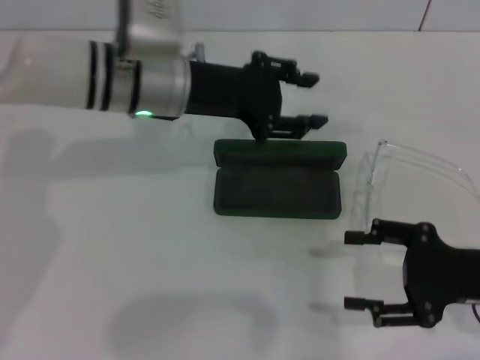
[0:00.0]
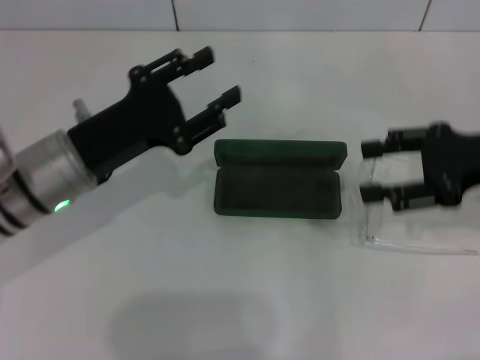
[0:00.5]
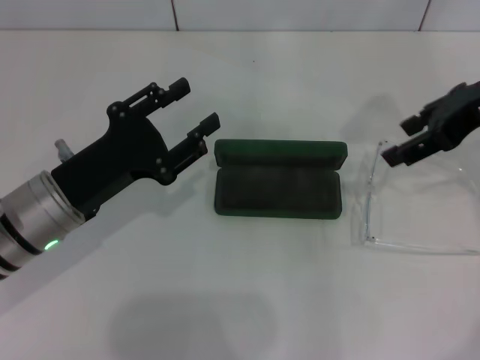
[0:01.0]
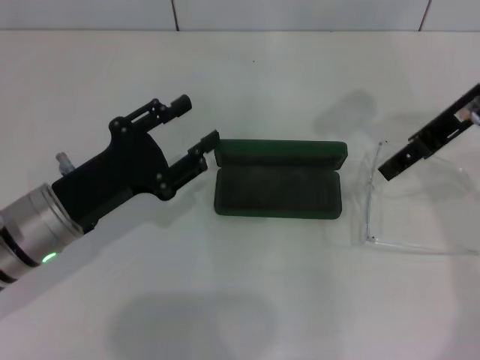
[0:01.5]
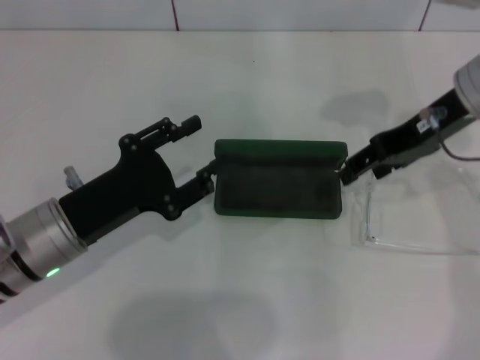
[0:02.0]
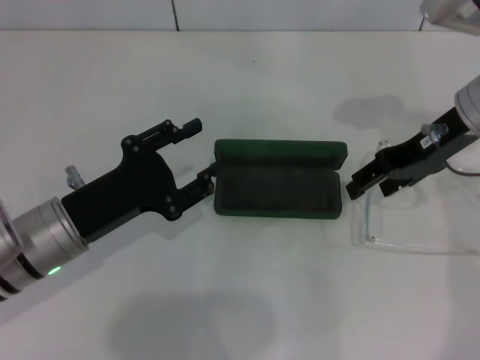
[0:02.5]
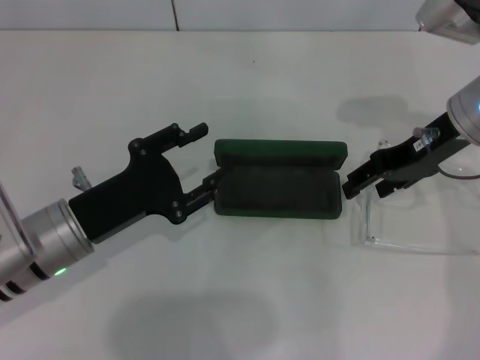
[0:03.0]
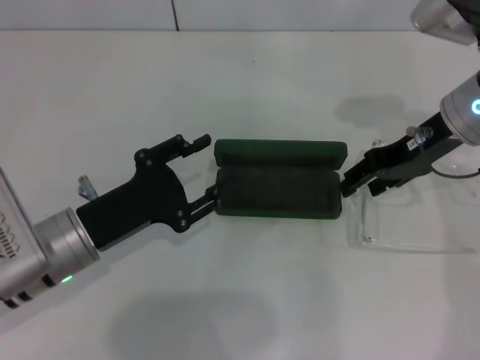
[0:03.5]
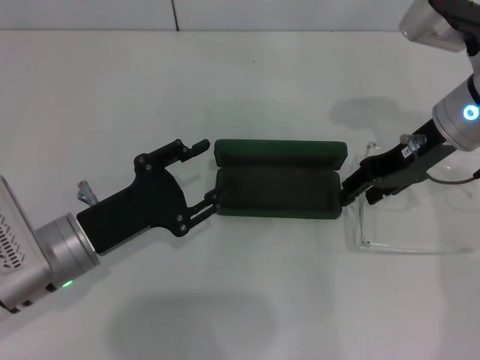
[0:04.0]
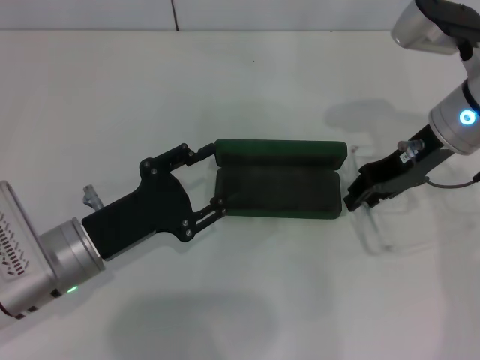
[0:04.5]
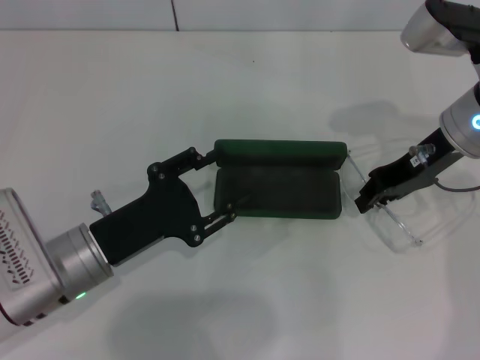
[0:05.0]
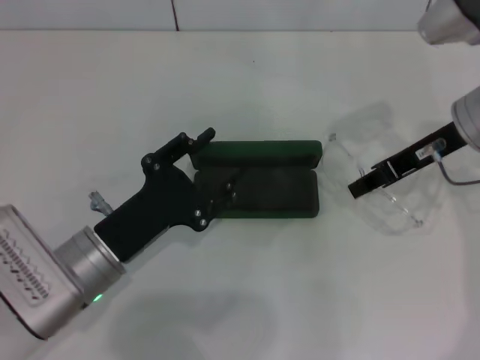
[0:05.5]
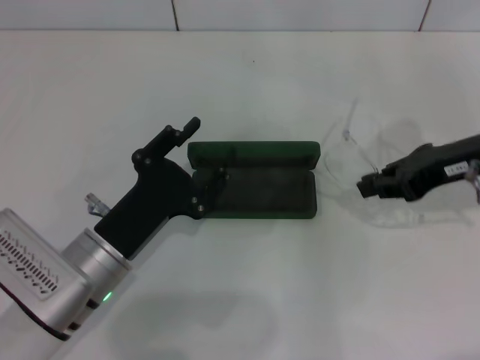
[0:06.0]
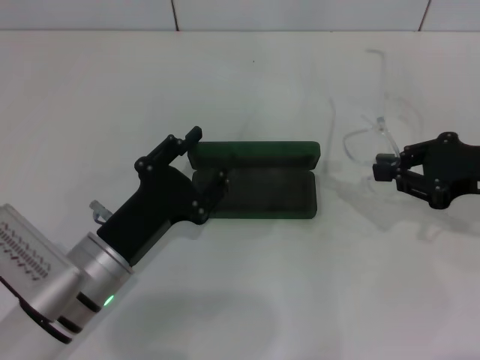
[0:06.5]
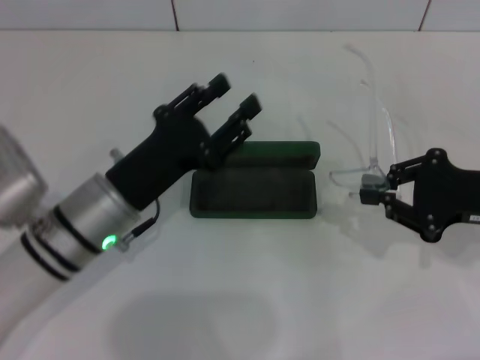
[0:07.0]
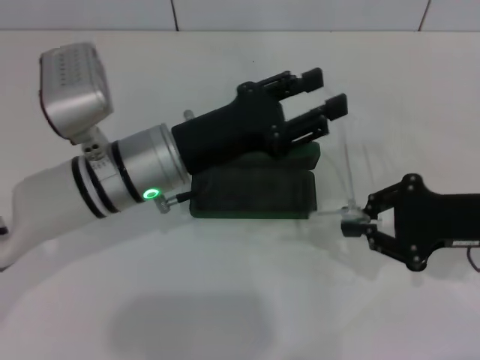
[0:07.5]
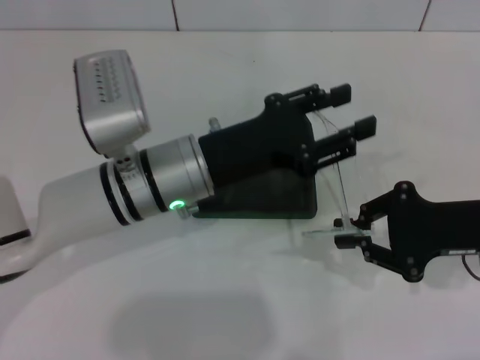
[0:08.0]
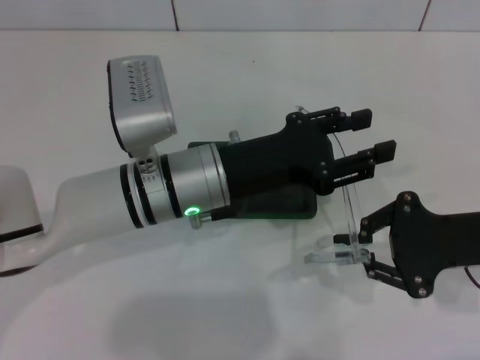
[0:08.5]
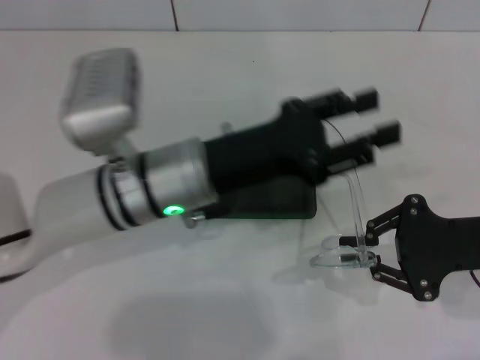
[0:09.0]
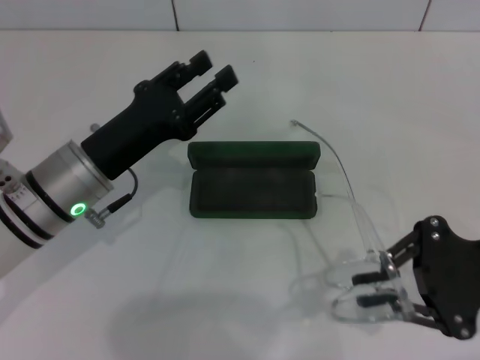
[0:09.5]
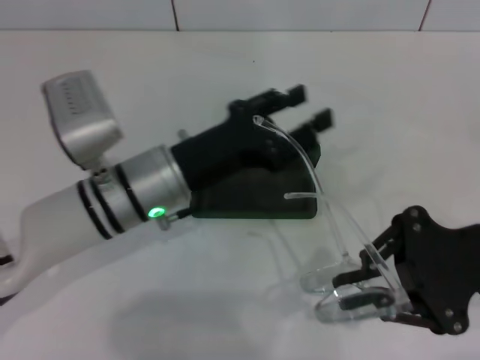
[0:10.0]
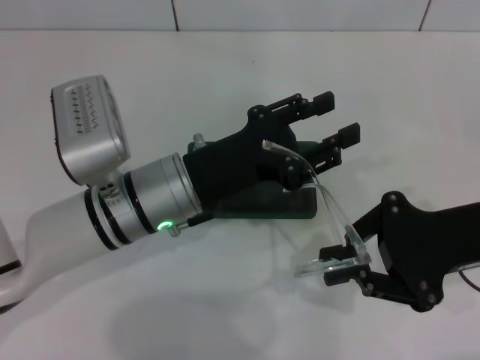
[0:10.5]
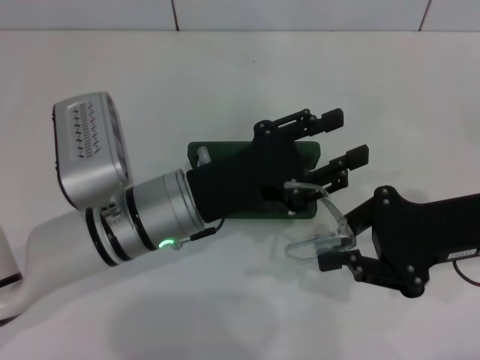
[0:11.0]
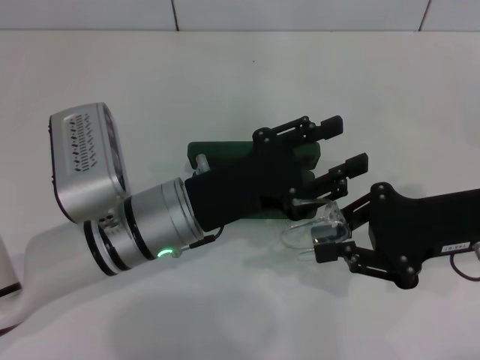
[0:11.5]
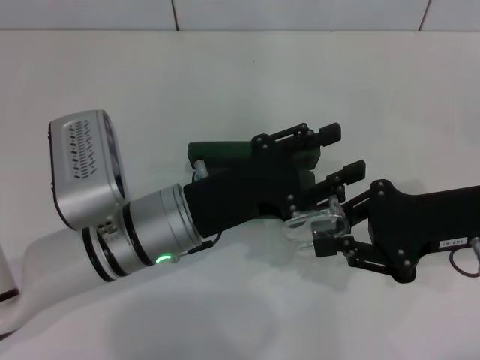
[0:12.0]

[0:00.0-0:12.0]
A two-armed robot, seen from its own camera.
Step, 0.0 to 5.0 s: Grab the eyeglass frame with your right hand.
Step, 5.5 to 11.5 s: Fold the frame with your left hand.
0.0 to 2.0 s: The left gripper goes about 20 cm backward, to the left and downward. Meanwhile the right gripper moves forward, upward and to the left, about 20 cm.
2.0 to 4.0 s: The grippers make only small movements.
4.0 to 6.0 s: The right gripper moves to the right, some 5 cm, and closes its fingers.
6.0 to 8.0 s: The right gripper shifts some 10 cm backward and downward. The left gripper is displaced forward, to the right and upward by roughly 15 cm.
8.0 to 10.0 s: The left gripper travels to the left and back again, about 10 cm each way.

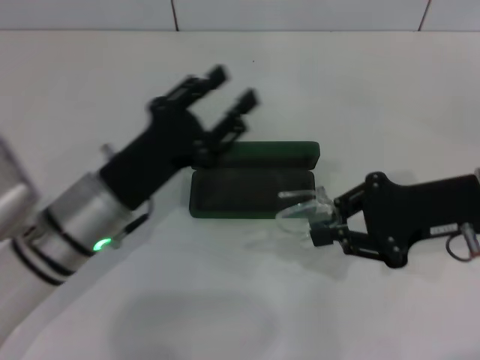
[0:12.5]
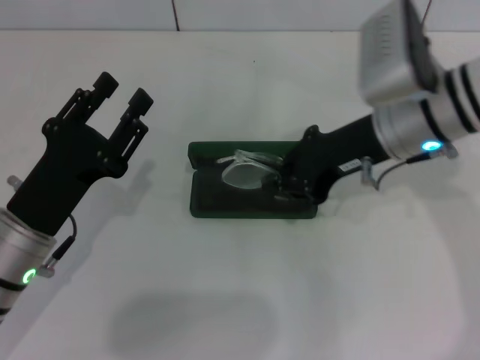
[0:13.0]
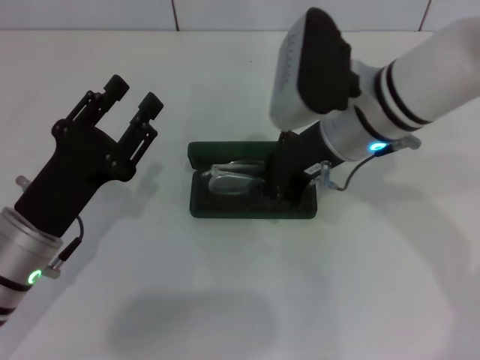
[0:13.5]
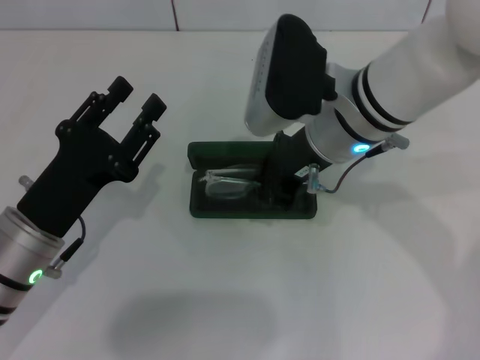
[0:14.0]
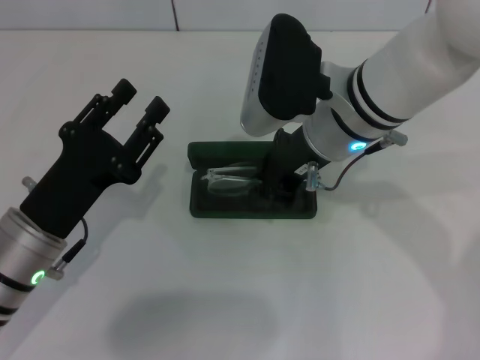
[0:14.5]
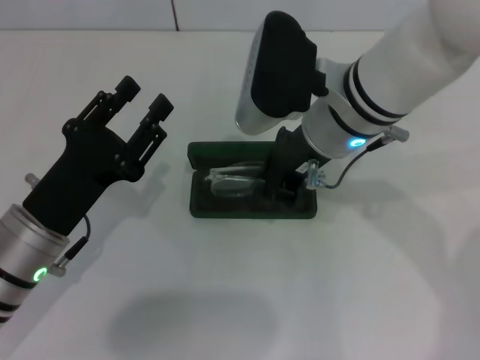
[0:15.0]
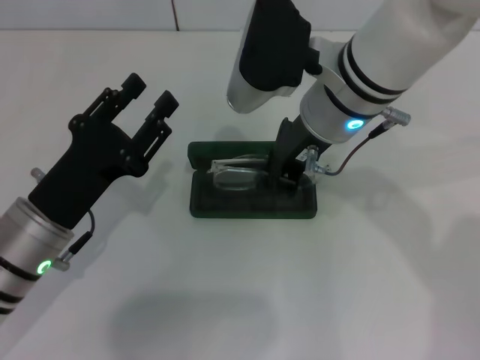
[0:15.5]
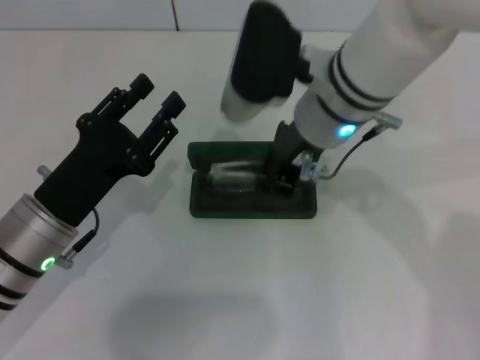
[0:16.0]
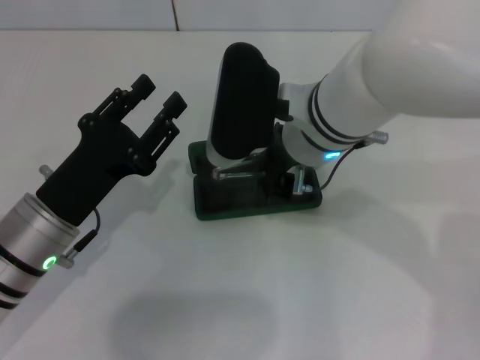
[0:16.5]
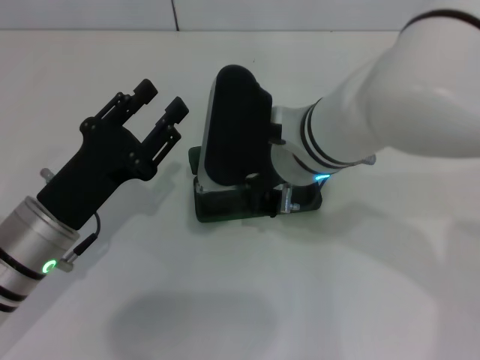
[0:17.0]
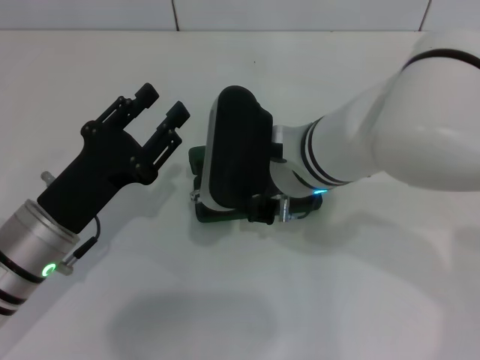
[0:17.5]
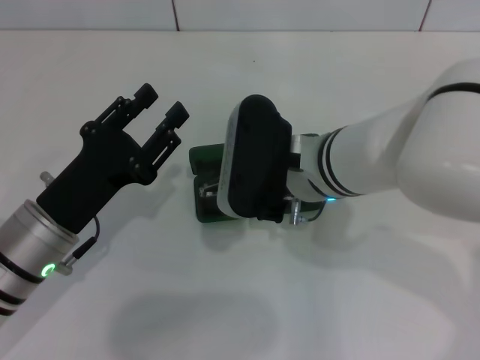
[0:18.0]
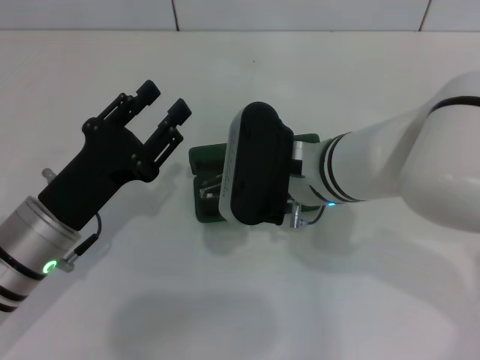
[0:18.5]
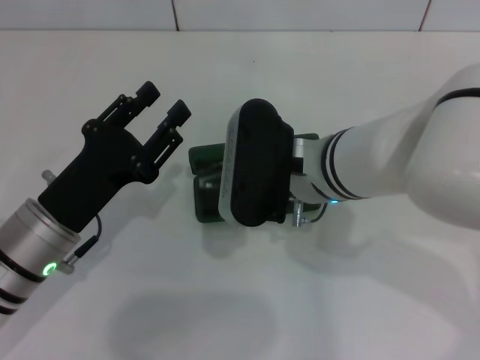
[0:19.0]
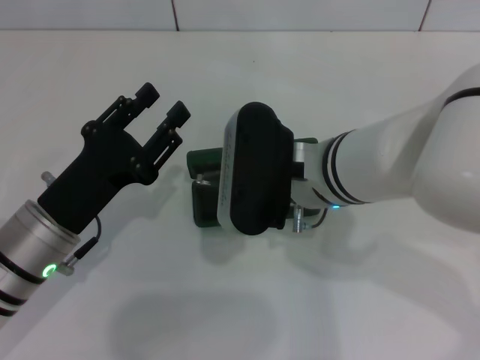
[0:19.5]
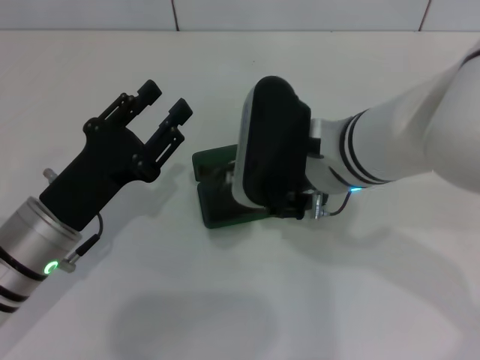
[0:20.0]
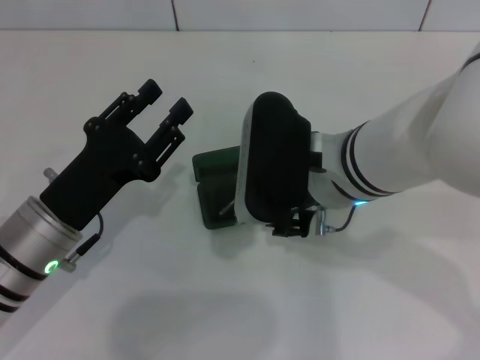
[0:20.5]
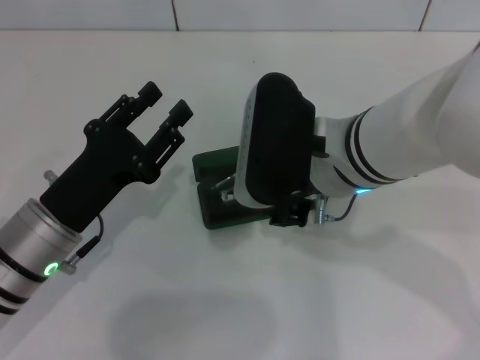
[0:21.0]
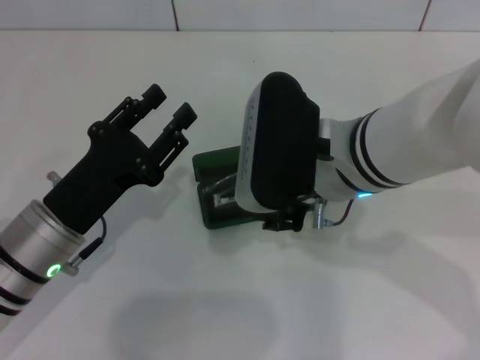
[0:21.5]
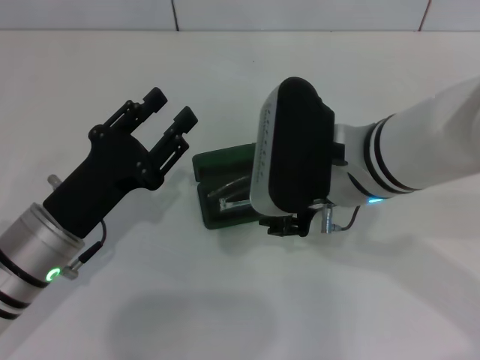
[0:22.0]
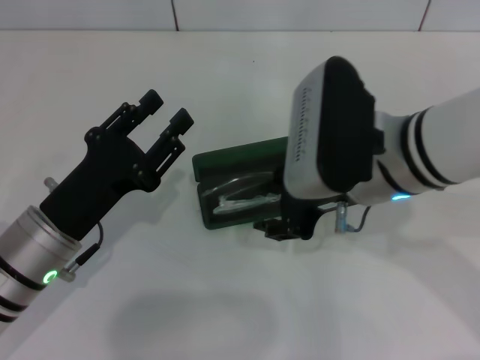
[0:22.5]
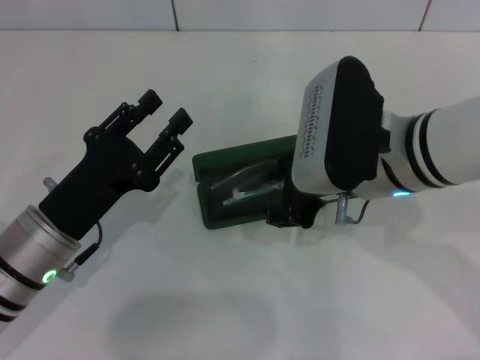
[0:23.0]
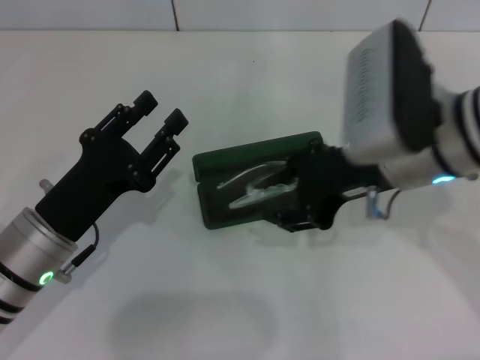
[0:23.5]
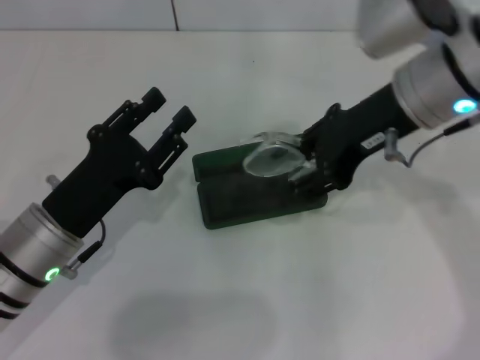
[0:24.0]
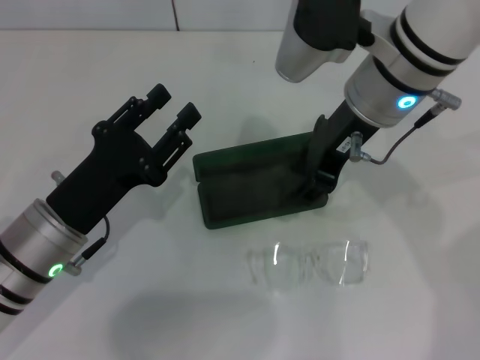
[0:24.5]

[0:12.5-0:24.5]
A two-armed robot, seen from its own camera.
12.5 to 14.5 s: The left gripper ends up roughly 5 cm from where it was, while the right gripper heads to the left, covering some 15 cm.
16.5 to 18.5 s: The right gripper changes place by about 5 cm.
18.5 to 20.5 s: The right gripper opens.
20.5 to 22.5 s: The grippers make only small movements.
22.5 to 24.5 s: The right gripper shifts about 5 cm forward.

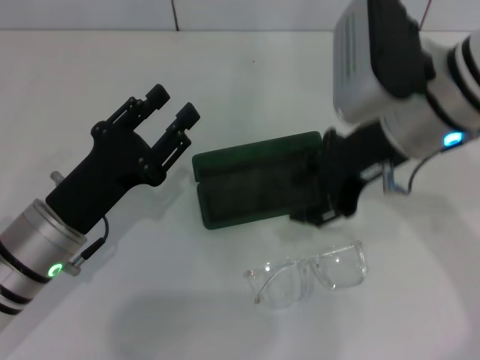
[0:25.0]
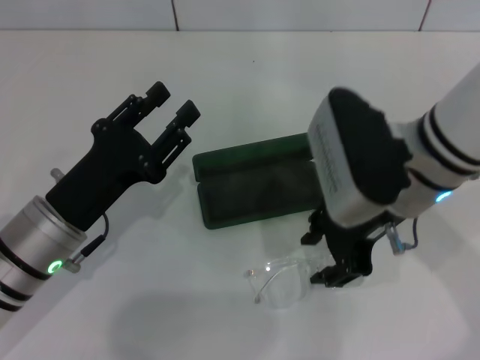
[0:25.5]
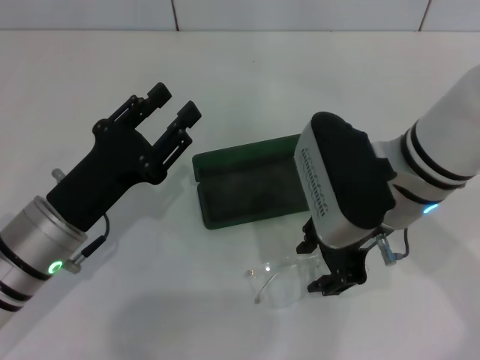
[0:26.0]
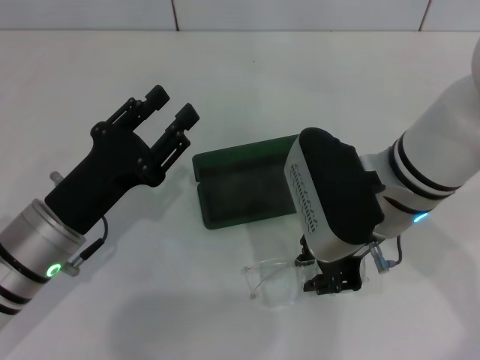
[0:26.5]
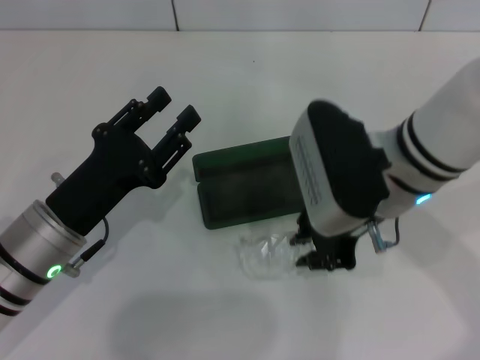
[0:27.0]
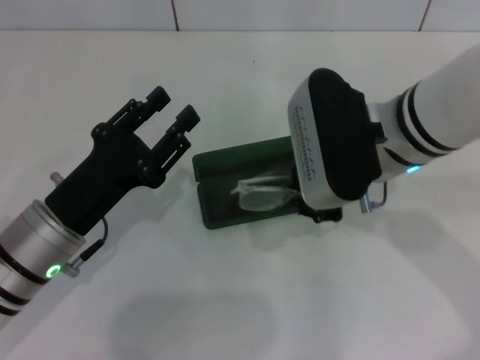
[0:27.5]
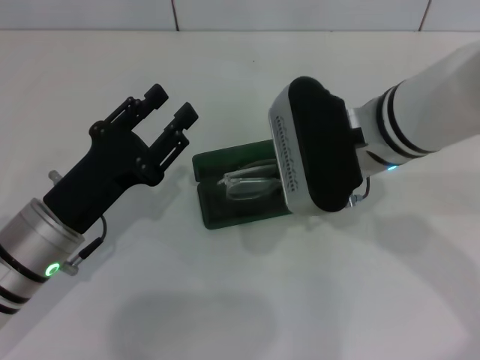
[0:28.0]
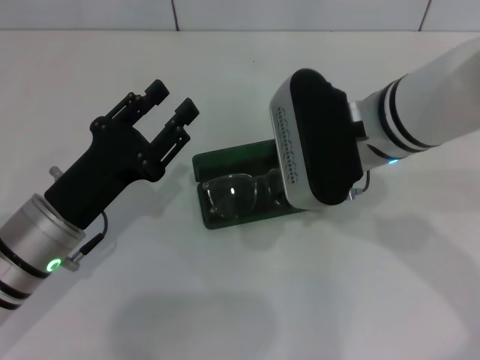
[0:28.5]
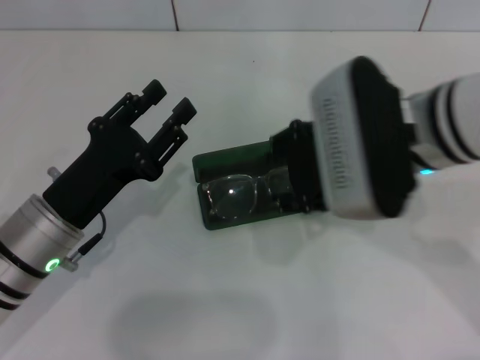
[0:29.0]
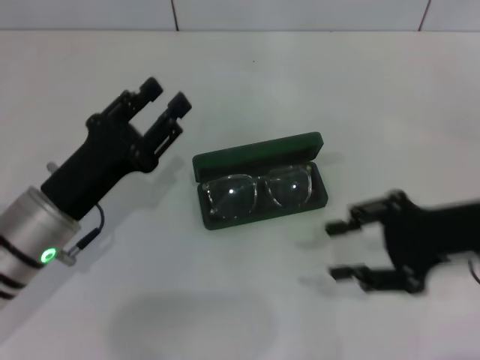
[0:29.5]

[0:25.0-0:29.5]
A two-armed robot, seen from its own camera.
Step, 27.0 to 28.5 s: Put the glasses into the case with your right hand.
25.0 to 27.0 s: The right gripper changes place by roughly 5 cm, and closes its fingers.
27.0 to 29.5 s: The right gripper moves to the right, approximately 15 cm.
